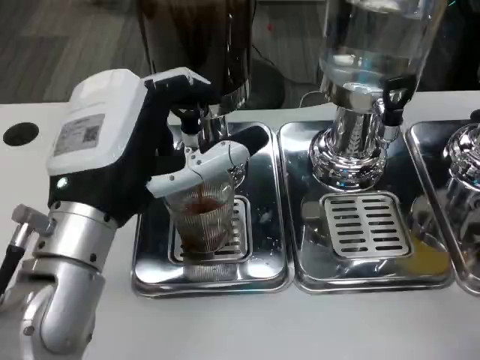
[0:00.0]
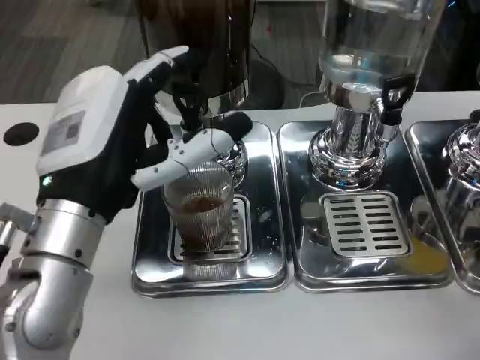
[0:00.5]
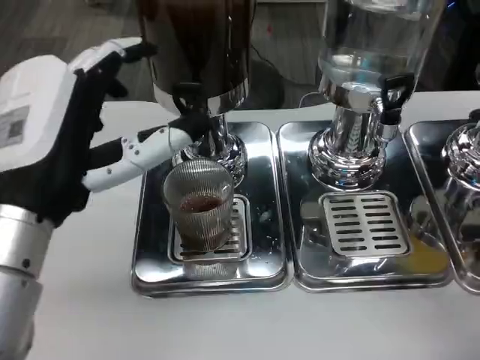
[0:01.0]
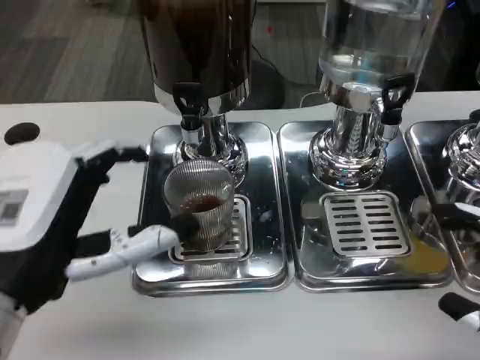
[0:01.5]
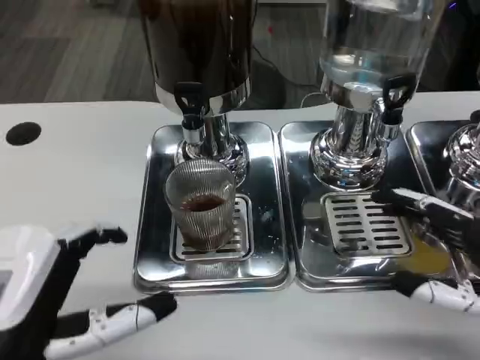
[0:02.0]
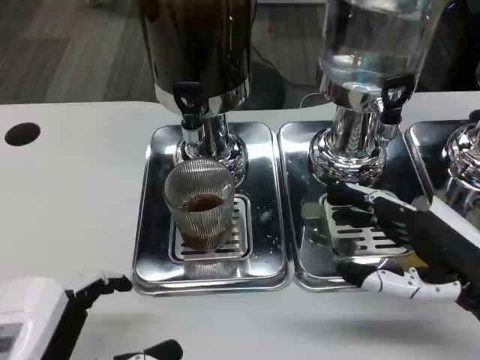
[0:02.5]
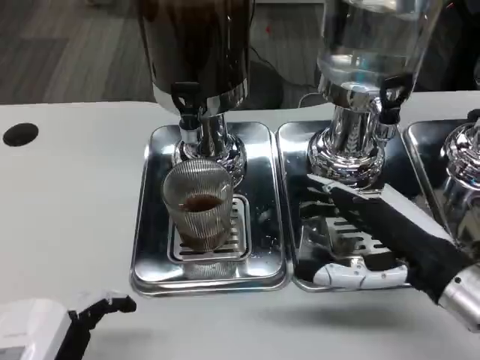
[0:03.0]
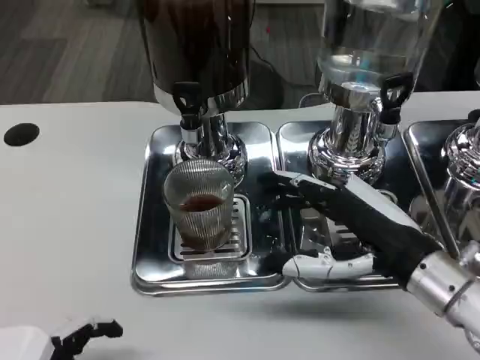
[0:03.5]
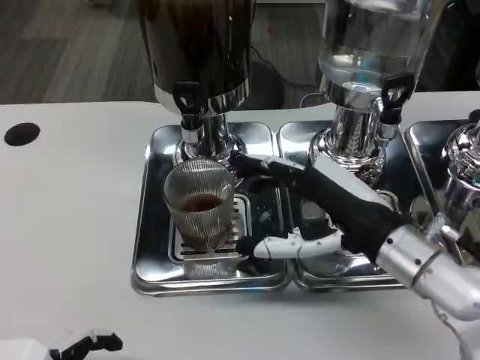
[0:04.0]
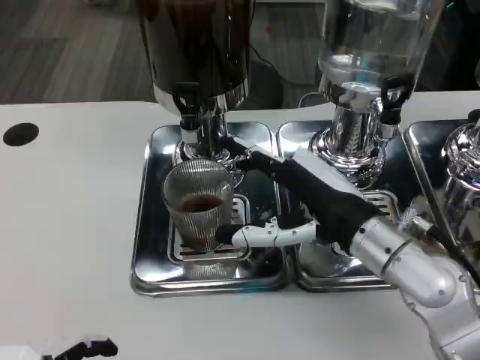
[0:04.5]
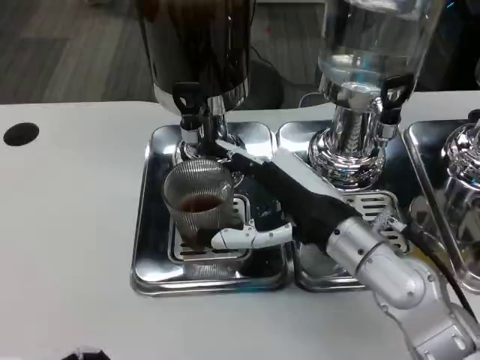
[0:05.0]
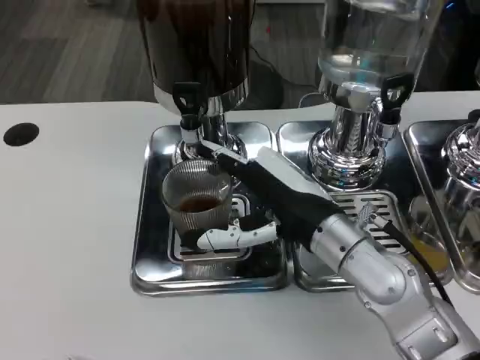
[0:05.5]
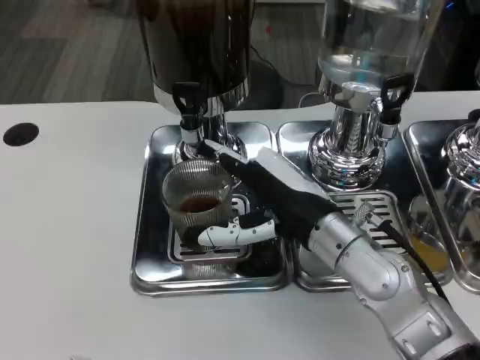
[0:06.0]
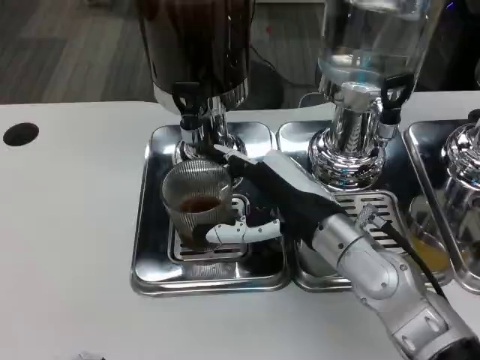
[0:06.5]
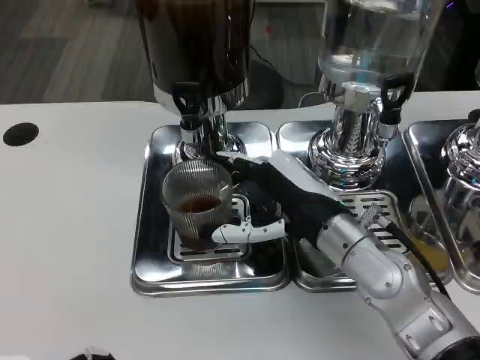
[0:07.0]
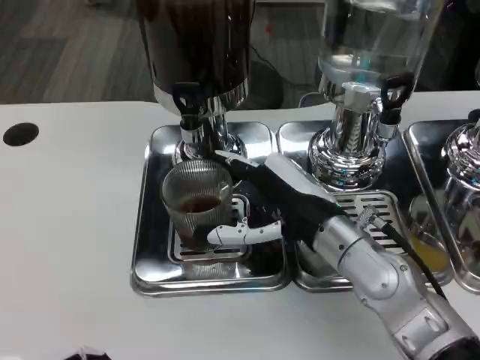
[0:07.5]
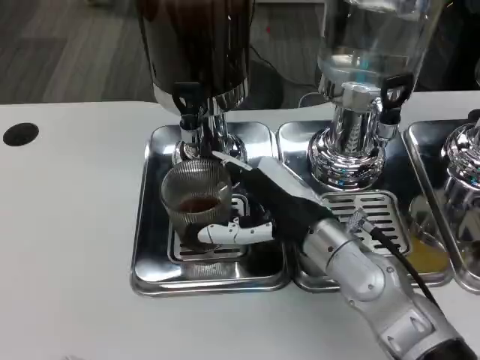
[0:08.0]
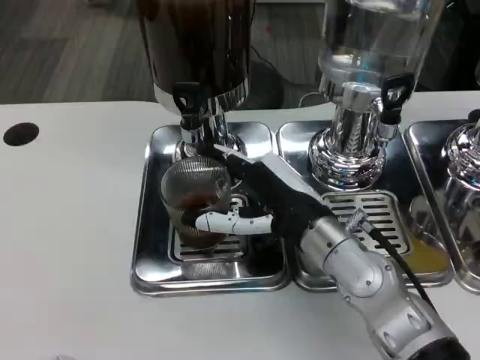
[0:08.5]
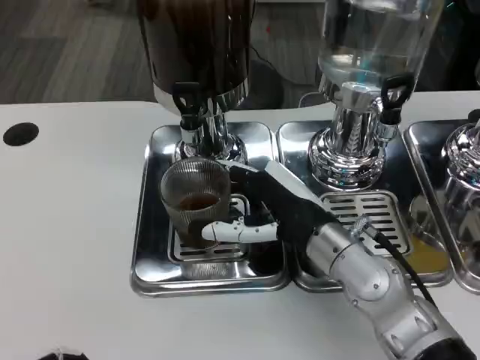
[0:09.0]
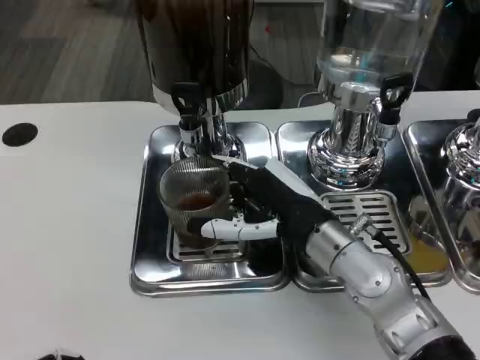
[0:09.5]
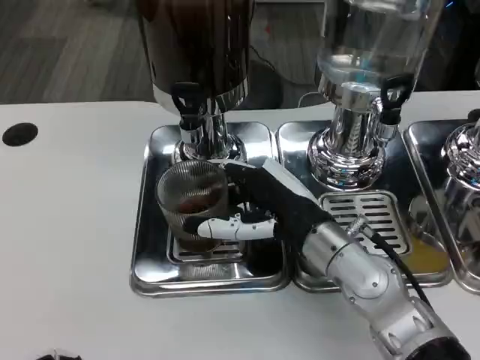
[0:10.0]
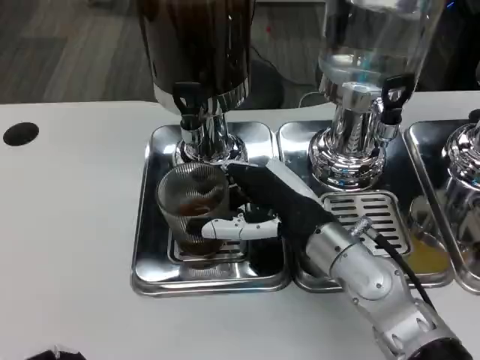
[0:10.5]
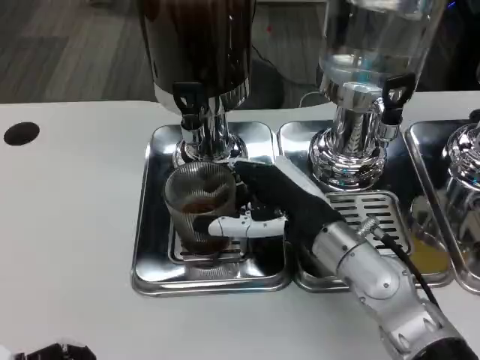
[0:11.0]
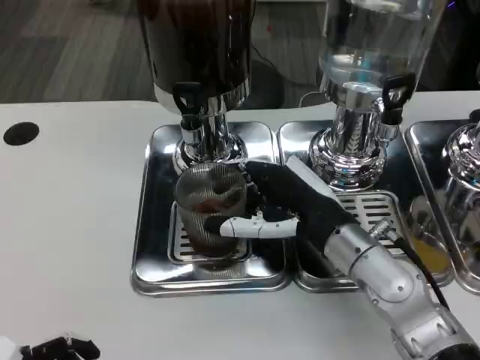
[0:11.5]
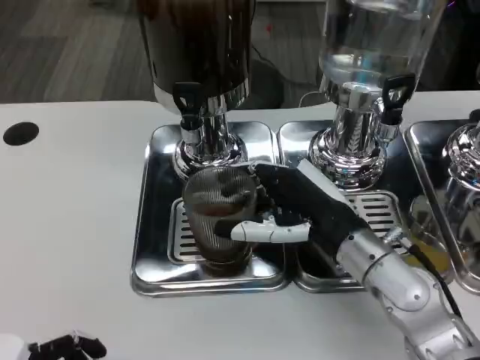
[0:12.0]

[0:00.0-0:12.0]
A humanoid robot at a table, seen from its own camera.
Task of the whole recording: Grasp the cup under the faucet to collect the drink, then remove the cup.
0:00.0 to 0:02.0: The right hand moves forward, about 10 cm, while the left hand travels backward and to the left by about 15 cm.
0:02.0 to 0:04.0: The left hand heads backward, covering roughly 5 cm, while the right hand heads to the left and forward, covering some 15 cm.
0:04.0 to 0:06.0: The right hand goes some 5 cm to the left.
0:06.0 to 0:12.0: The hands move only a little.

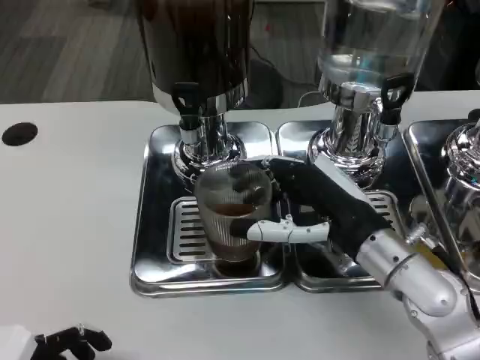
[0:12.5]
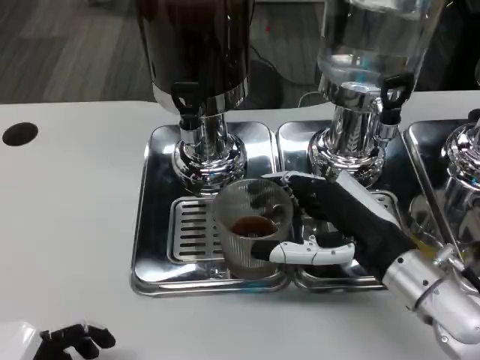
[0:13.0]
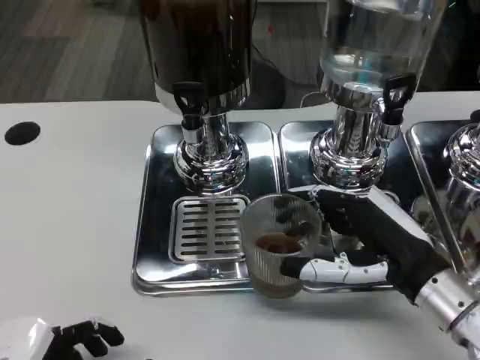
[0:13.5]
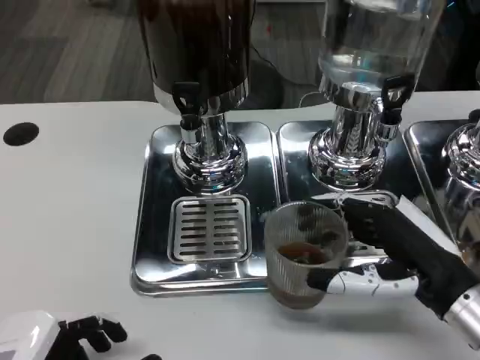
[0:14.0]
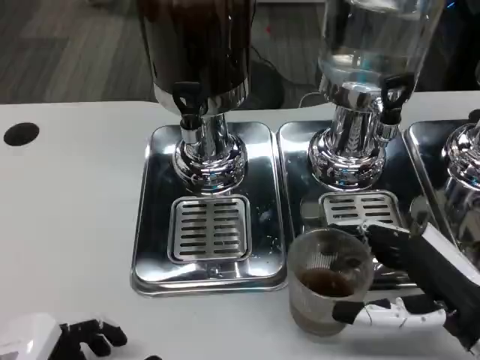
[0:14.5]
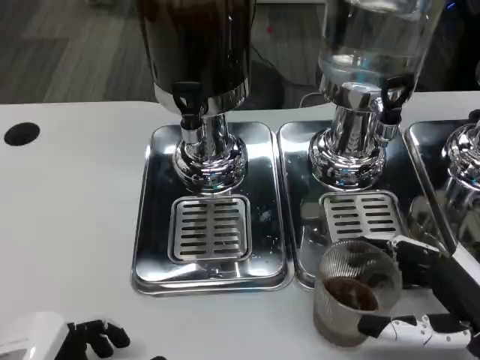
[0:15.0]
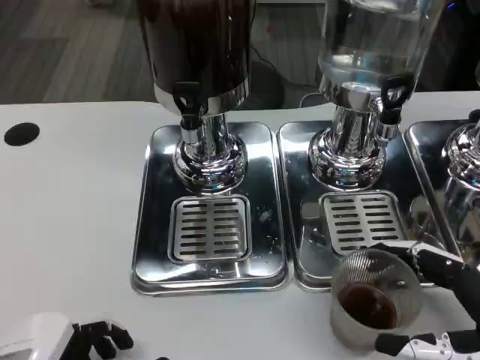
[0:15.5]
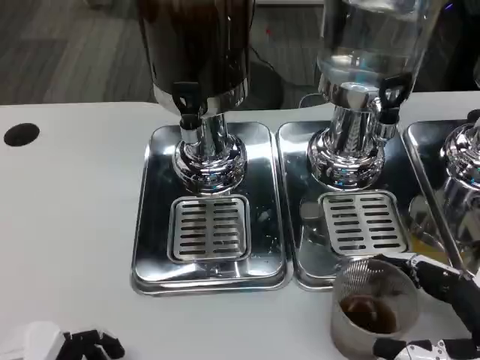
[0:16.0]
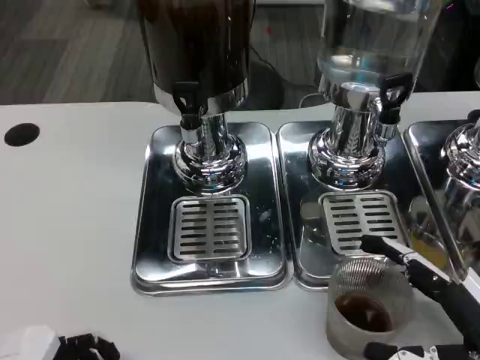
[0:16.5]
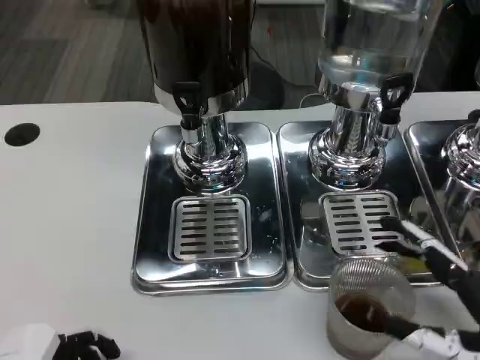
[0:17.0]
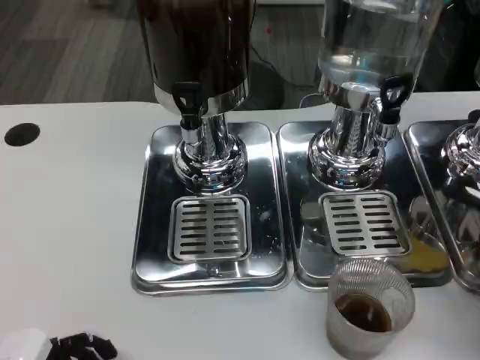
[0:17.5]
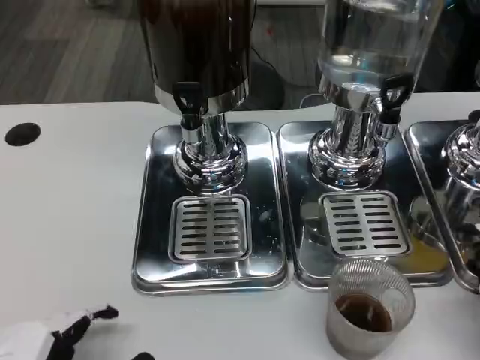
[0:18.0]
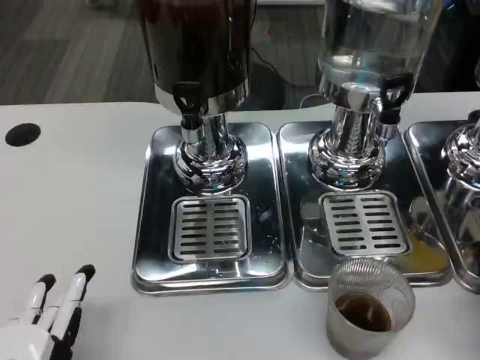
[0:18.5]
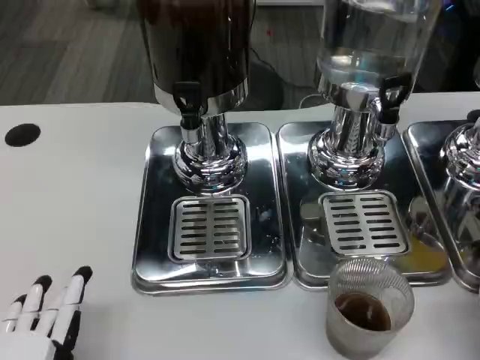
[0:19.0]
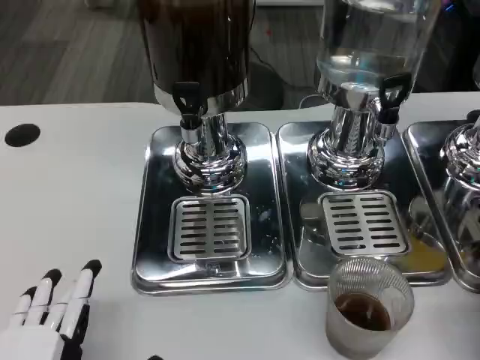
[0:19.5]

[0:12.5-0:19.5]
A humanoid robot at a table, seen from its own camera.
Task of the whole recording: Grasp the cup under the faucet to collect the drink, then remove the cup.
0:12.5 to 0:14.5: The right hand shifts approximately 15 cm to the right and backward.
0:14.5 to 0:16.0: The right hand ends up some 5 cm from where it was.
0:16.0 to 0:17.5: The right hand ends up roughly 5 cm from where it was.

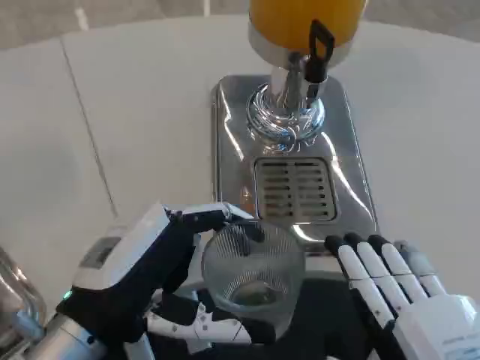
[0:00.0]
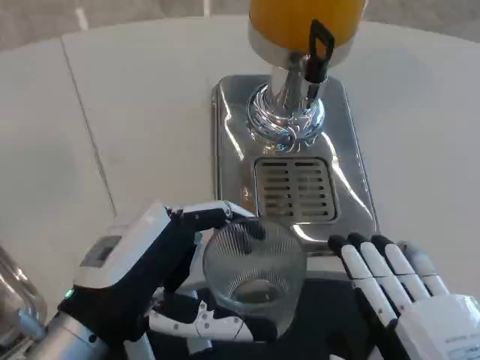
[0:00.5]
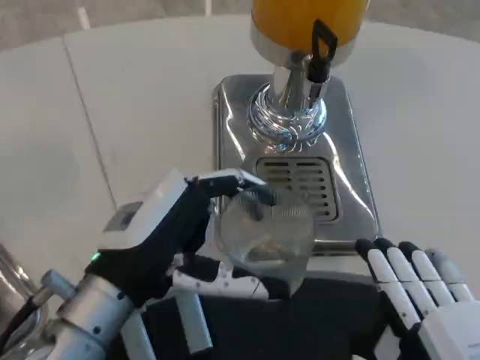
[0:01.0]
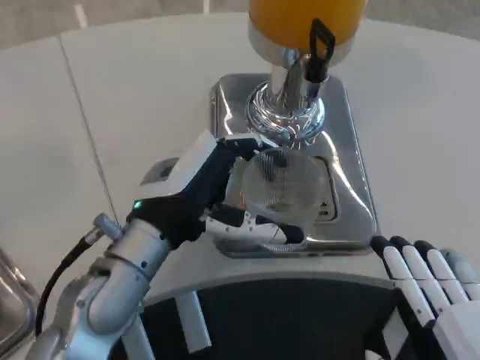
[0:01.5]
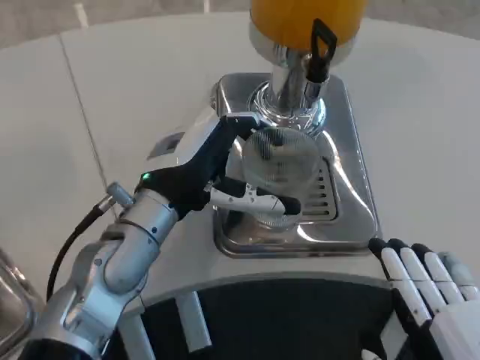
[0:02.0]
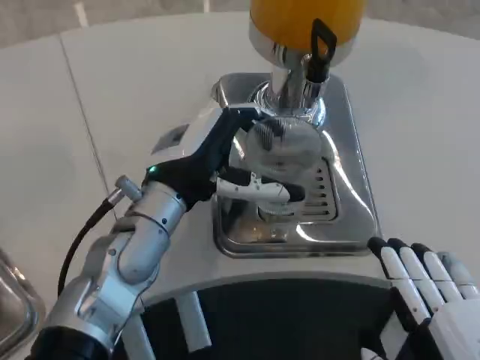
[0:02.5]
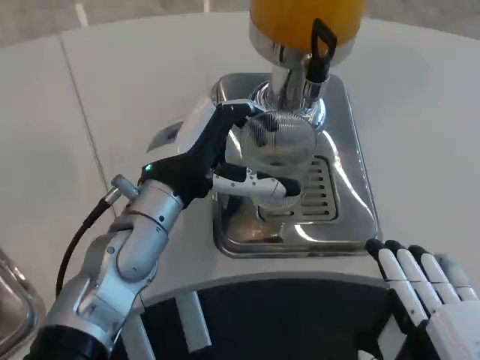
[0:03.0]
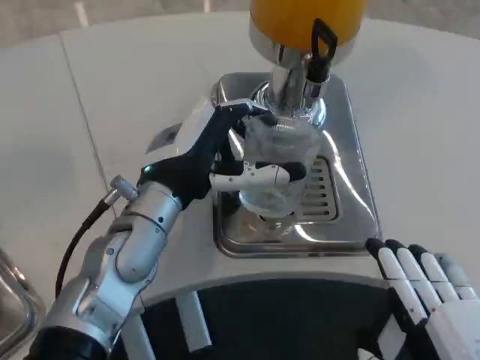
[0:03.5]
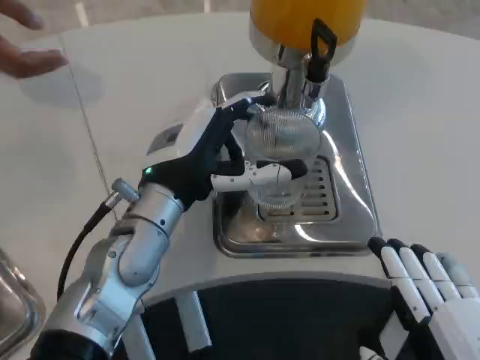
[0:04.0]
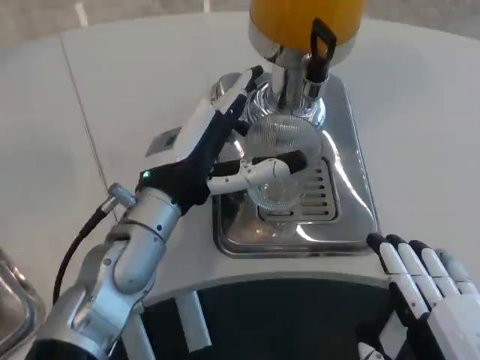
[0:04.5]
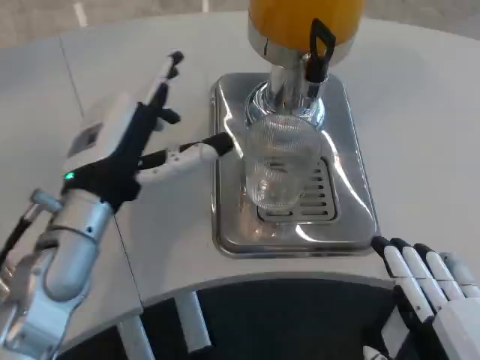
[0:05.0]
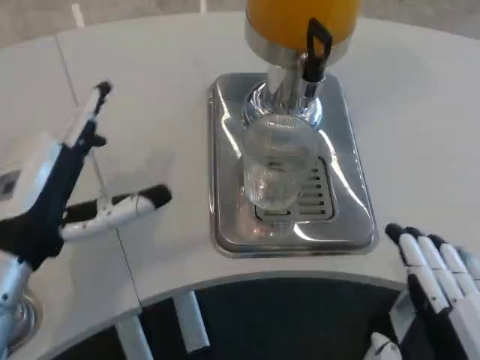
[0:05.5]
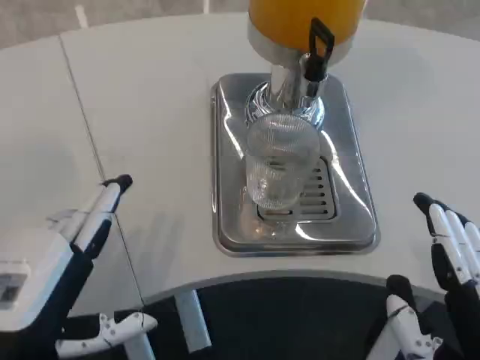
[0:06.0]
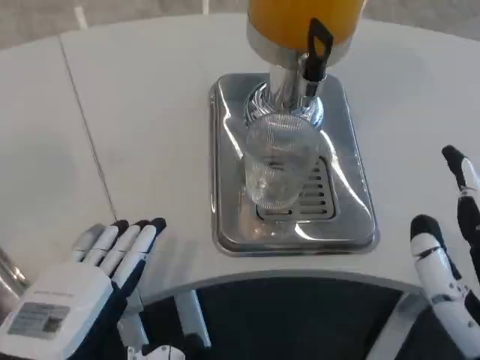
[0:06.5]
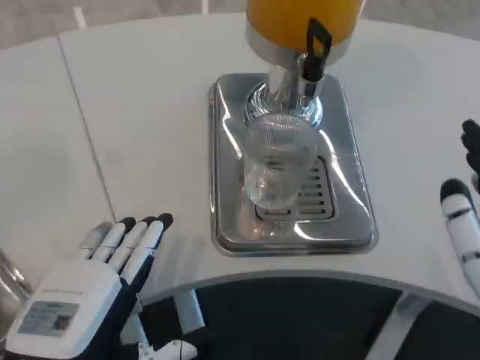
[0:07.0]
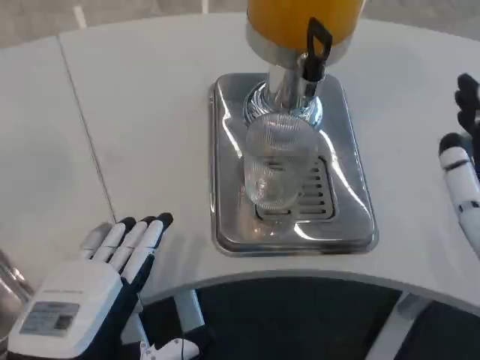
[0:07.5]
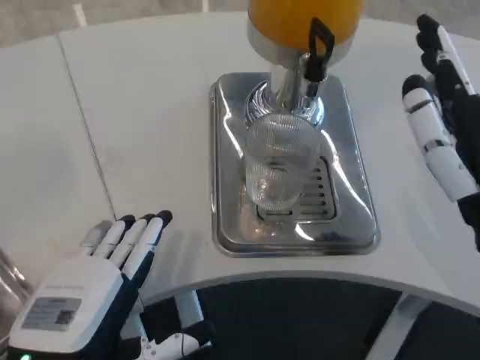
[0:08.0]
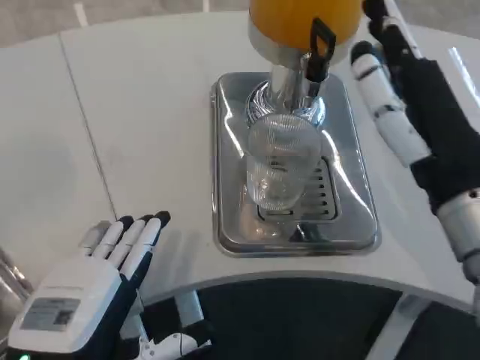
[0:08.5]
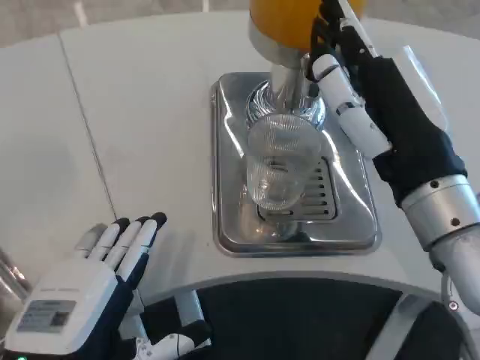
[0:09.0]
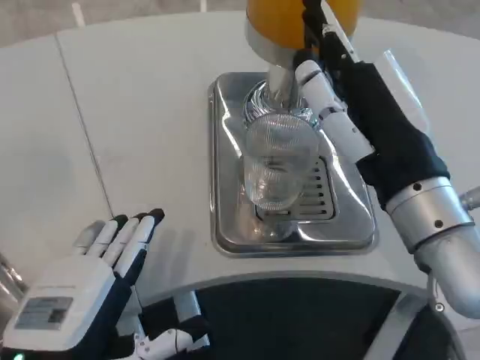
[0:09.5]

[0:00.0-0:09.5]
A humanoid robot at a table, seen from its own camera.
Task of the whole recording: Grasp the cup under the faucet to collect the drink, then remove the cup.
0:00.0 to 0:02.0: The left hand travels forward by some 15 cm.
0:02.0 to 0:04.0: The hands move only a little.
0:04.0 to 0:05.5: The left hand travels to the left and backward by some 15 cm.
0:05.5 to 0:07.5: The right hand travels forward and upward by about 10 cm. The left hand shifts about 10 cm backward.
0:07.5 to 0:09.5: The right hand heads forward and to the left, covering roughly 10 cm.
